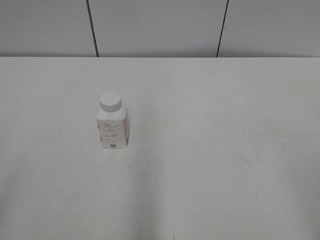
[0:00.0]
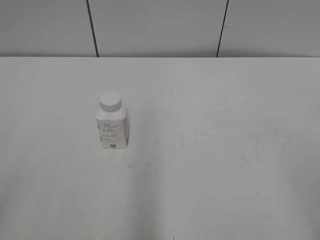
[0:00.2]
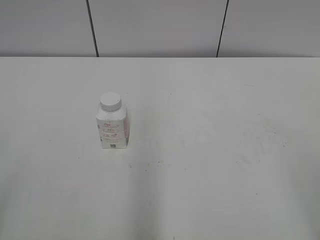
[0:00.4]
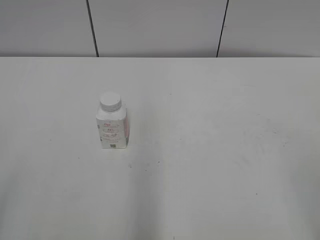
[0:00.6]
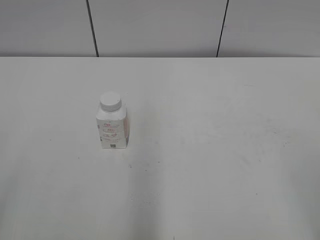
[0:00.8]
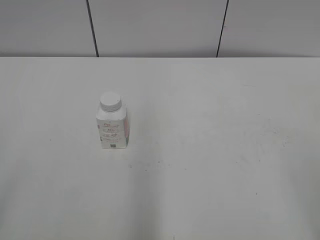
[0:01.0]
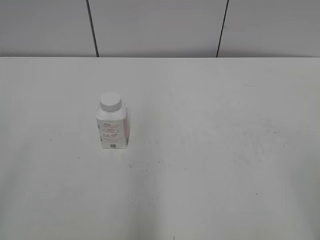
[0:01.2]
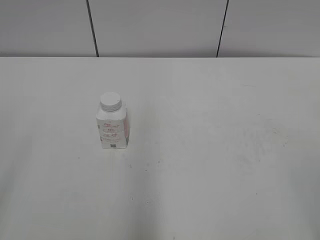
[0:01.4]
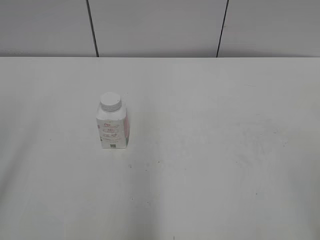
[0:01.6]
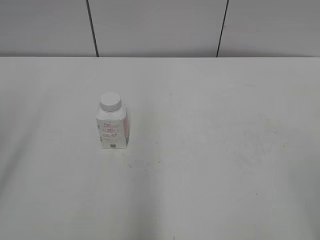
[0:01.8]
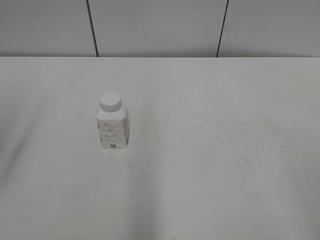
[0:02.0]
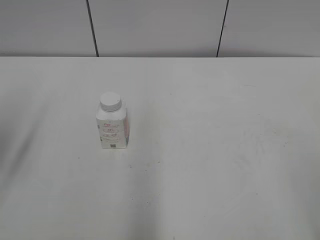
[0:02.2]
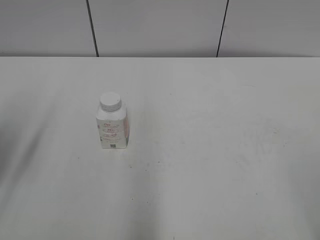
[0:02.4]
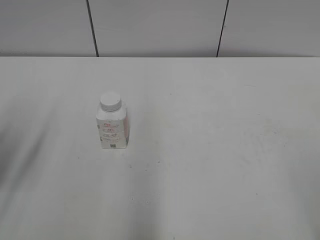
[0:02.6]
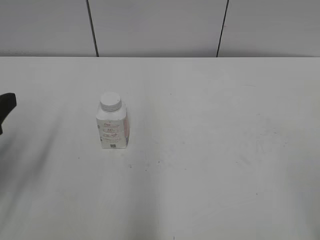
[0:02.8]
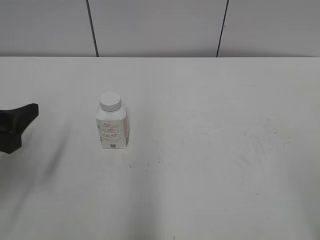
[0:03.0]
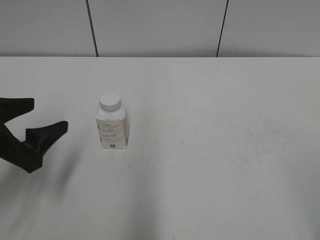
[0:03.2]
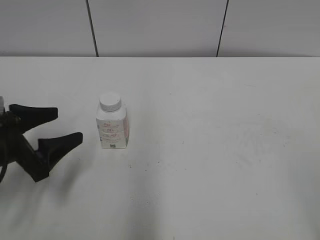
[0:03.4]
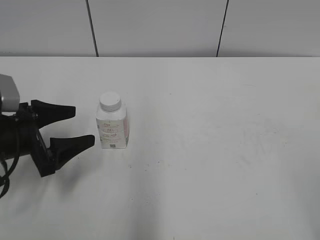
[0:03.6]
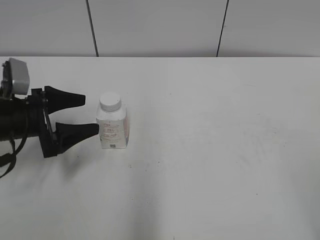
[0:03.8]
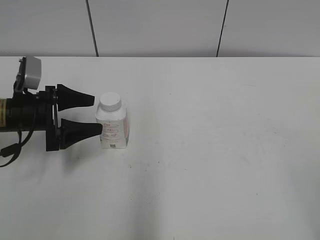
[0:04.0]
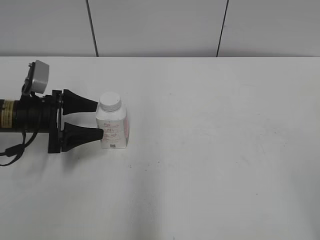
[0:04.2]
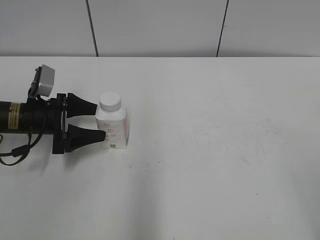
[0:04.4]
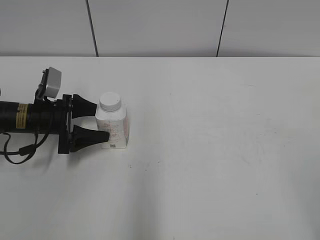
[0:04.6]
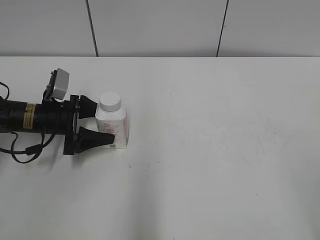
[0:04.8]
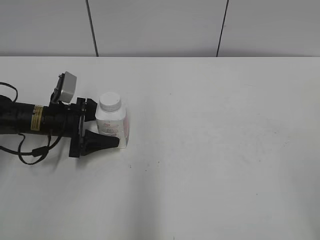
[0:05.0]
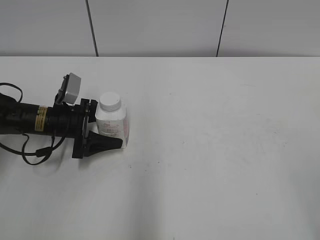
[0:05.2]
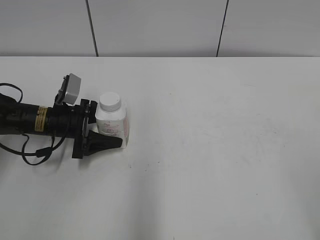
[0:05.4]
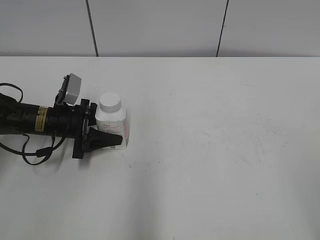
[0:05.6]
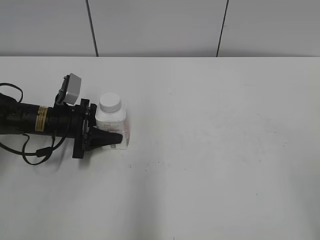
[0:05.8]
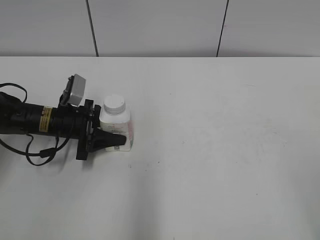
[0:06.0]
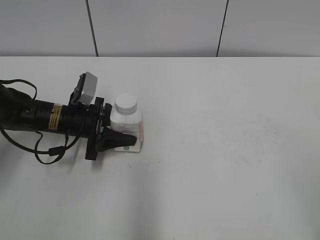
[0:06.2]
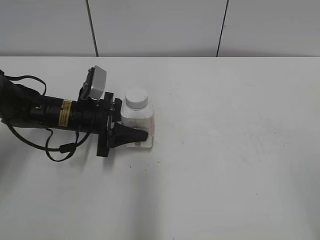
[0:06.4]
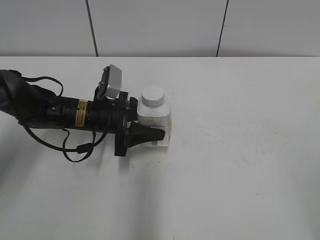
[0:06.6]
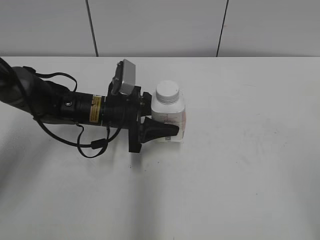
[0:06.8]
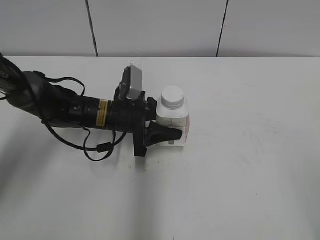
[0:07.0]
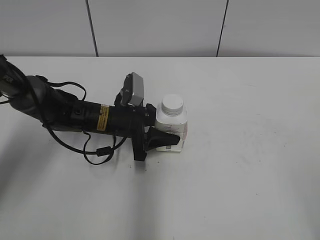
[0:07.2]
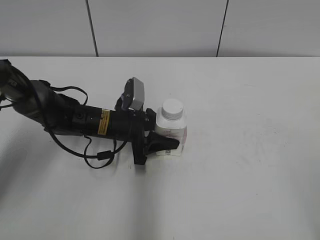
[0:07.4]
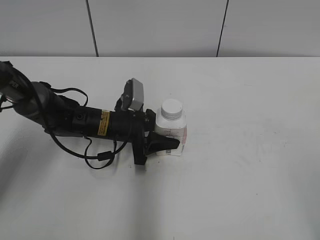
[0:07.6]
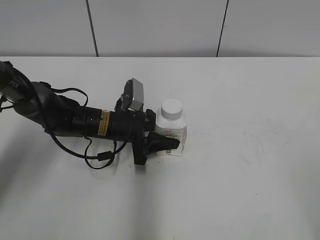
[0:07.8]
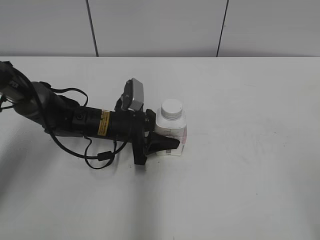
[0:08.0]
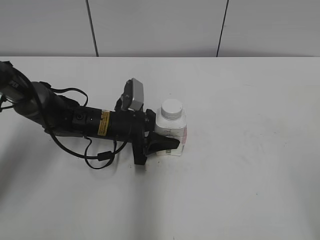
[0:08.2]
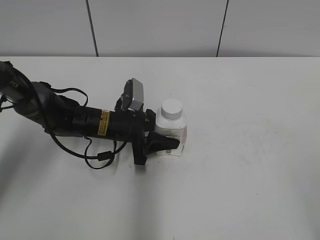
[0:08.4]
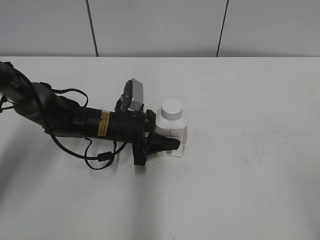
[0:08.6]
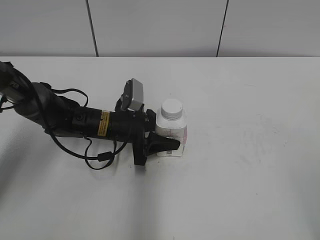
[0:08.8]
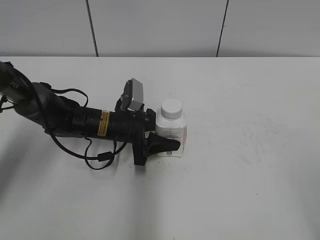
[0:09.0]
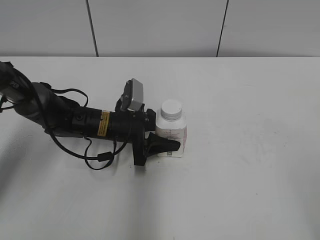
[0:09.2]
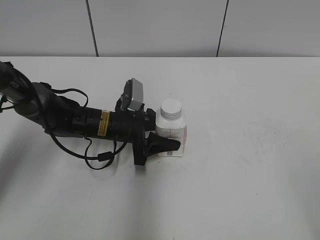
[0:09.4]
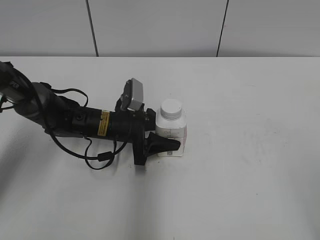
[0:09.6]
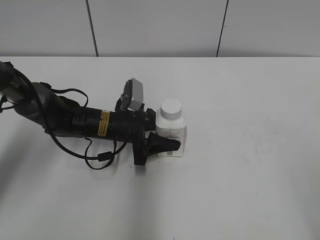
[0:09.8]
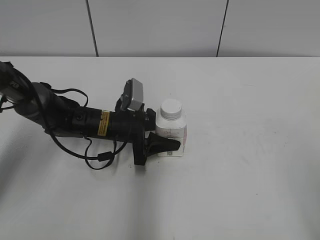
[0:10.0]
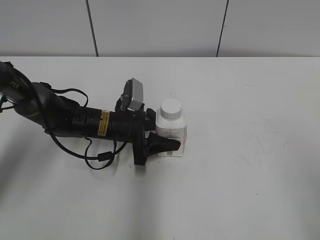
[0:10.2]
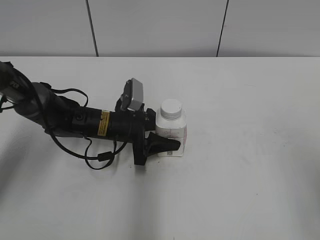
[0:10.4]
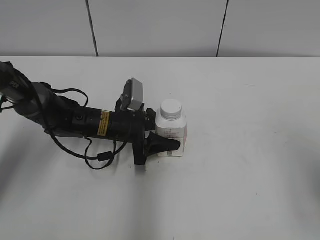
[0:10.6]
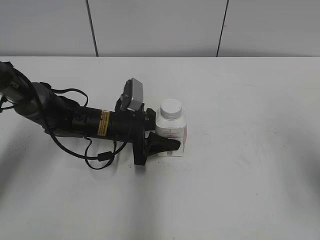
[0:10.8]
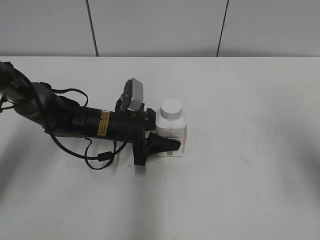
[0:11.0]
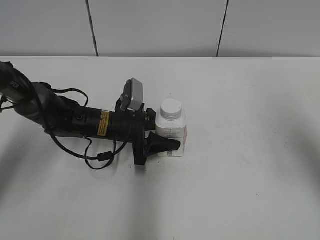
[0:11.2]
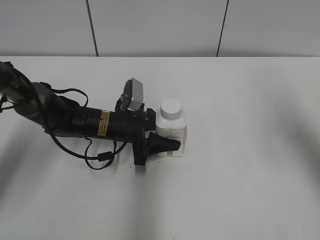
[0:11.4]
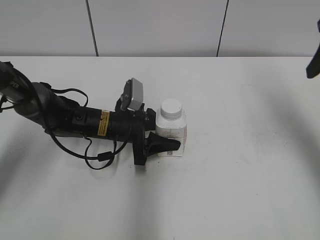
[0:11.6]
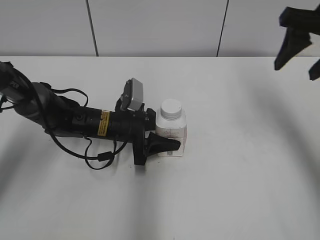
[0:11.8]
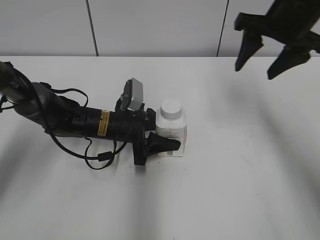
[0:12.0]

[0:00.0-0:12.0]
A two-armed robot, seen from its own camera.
Step, 0:00.0 to 0:05.8: Grasp the bottle and move it to the center of the table with the left gripper.
Step, 0:06.0 to 0:07.8: Lift the bottle and move it to the center of the table with the left gripper.
0:01.6 to 0:03.0: The left gripper goes approximately 20 cm downward and forward.
0:03.0 to 0:04.4: The left gripper travels forward and downward by some 20 cm.
0:04.4 to 0:06.0: The left gripper changes place by approximately 5 cm, and closes.
0:06.0 to 0:07.6: The left gripper shifts some 10 cm to the right.
0:07.6 to 0:09.0: The two grippers keep their place.
0:10.4 to 0:12.0: The right gripper is displaced forward by some 30 cm.

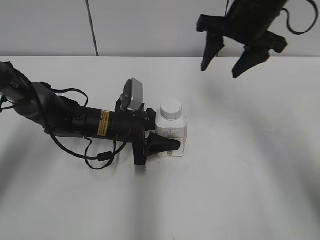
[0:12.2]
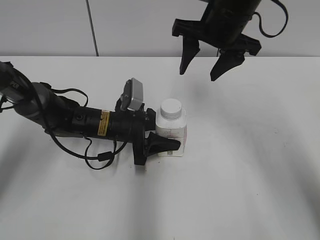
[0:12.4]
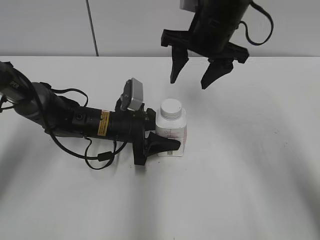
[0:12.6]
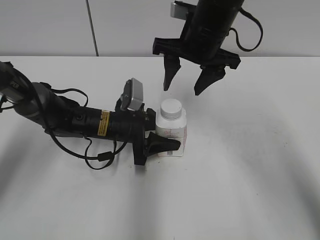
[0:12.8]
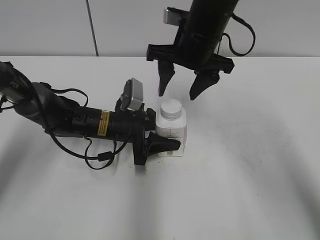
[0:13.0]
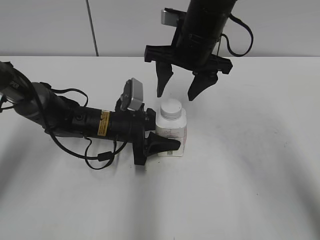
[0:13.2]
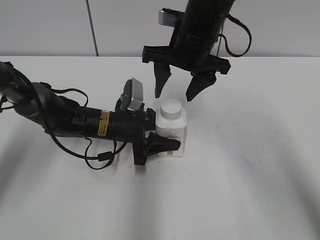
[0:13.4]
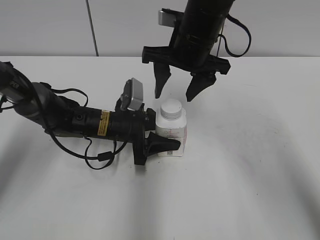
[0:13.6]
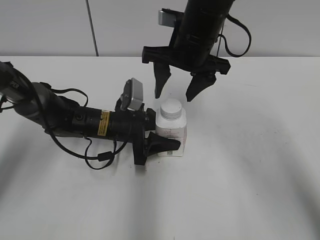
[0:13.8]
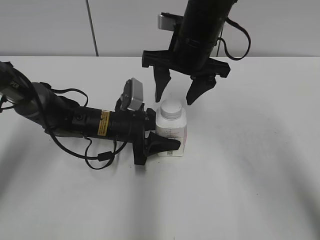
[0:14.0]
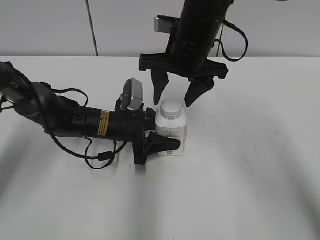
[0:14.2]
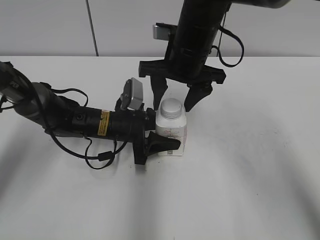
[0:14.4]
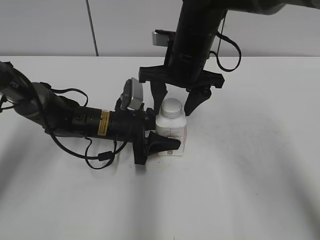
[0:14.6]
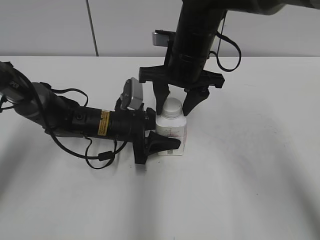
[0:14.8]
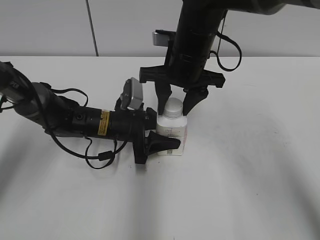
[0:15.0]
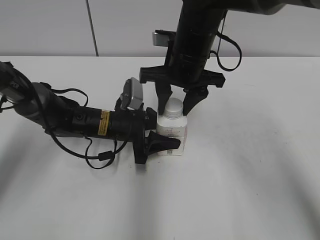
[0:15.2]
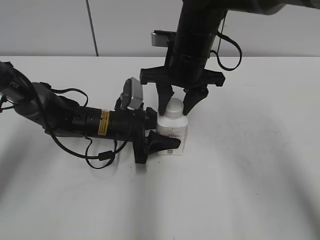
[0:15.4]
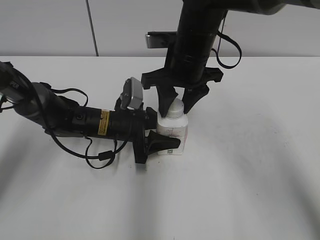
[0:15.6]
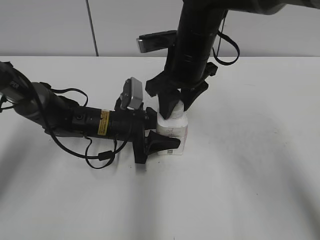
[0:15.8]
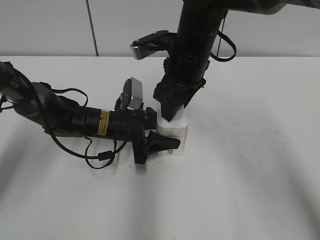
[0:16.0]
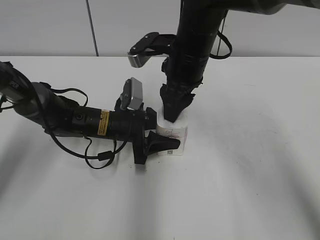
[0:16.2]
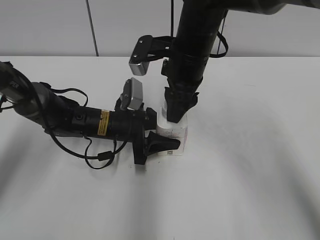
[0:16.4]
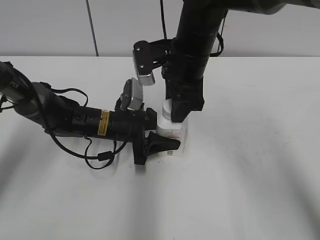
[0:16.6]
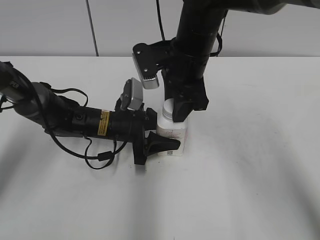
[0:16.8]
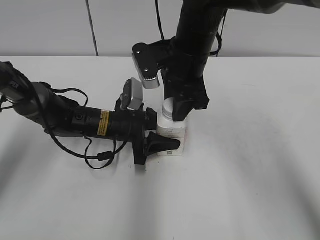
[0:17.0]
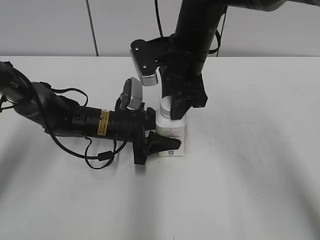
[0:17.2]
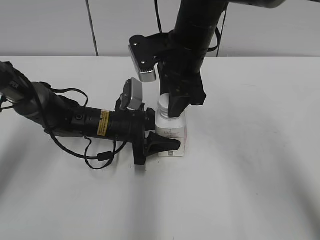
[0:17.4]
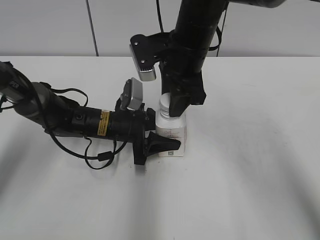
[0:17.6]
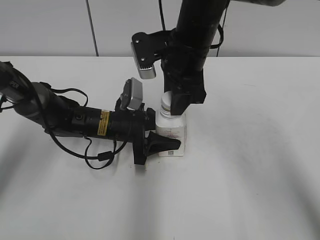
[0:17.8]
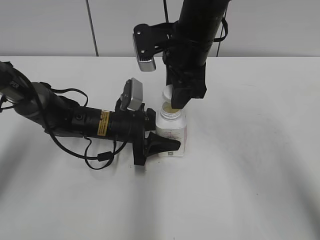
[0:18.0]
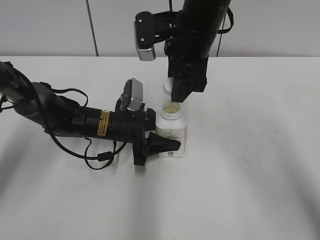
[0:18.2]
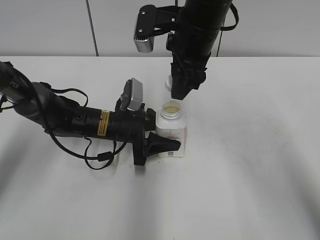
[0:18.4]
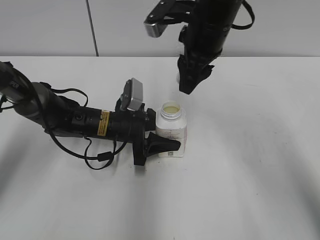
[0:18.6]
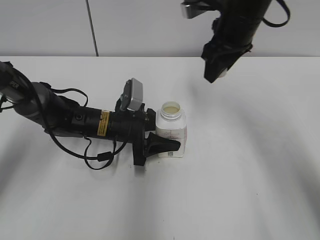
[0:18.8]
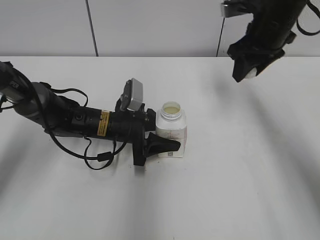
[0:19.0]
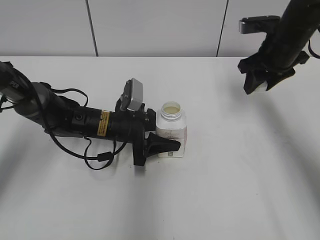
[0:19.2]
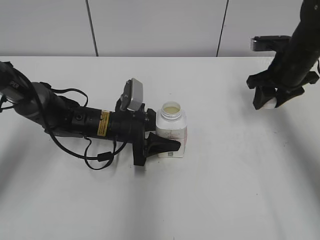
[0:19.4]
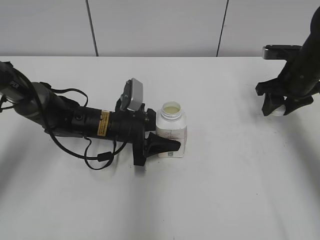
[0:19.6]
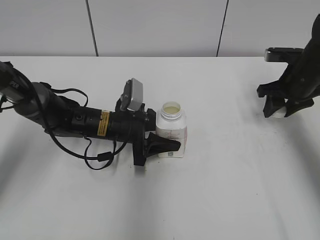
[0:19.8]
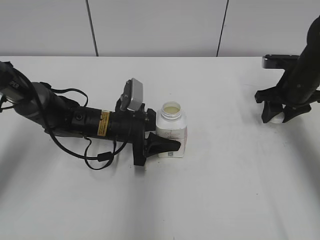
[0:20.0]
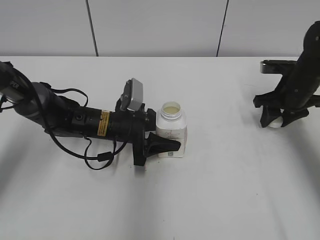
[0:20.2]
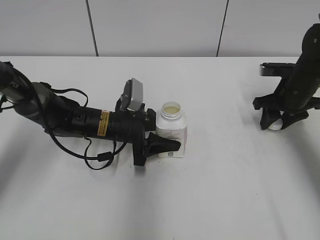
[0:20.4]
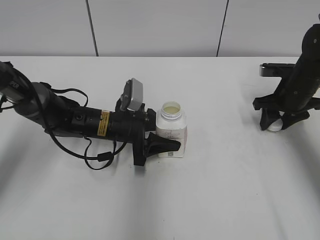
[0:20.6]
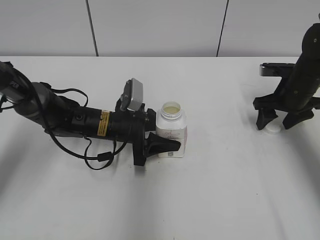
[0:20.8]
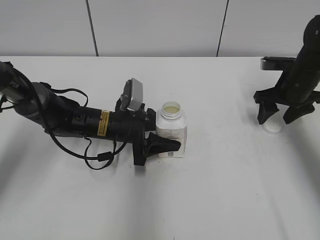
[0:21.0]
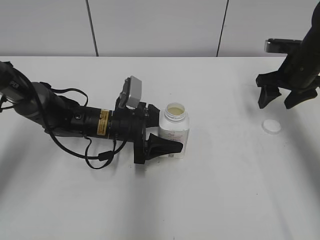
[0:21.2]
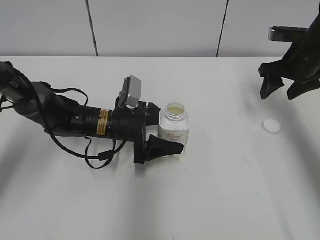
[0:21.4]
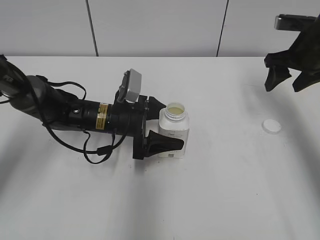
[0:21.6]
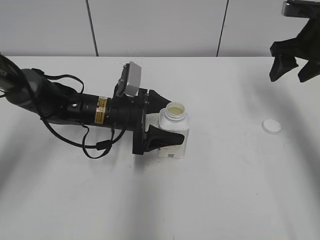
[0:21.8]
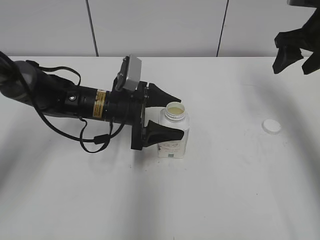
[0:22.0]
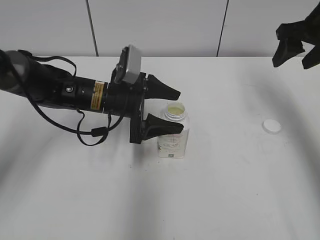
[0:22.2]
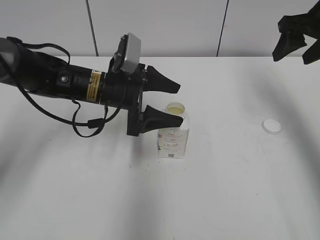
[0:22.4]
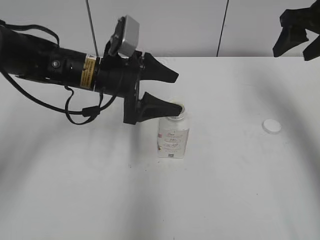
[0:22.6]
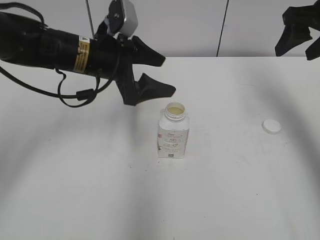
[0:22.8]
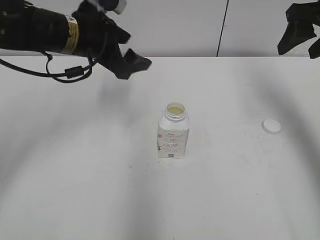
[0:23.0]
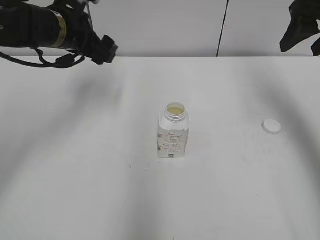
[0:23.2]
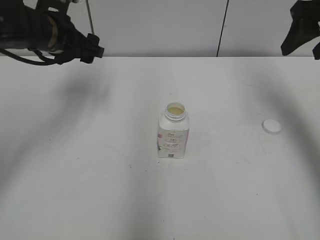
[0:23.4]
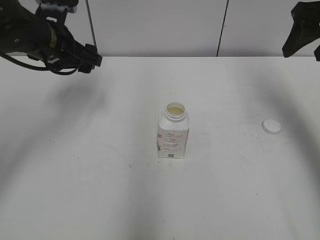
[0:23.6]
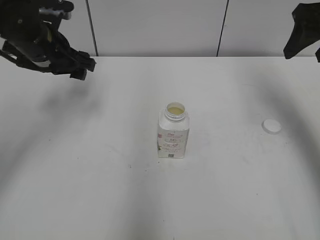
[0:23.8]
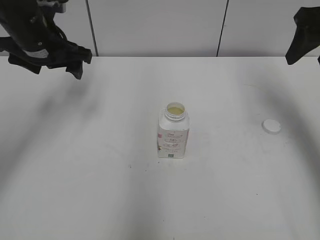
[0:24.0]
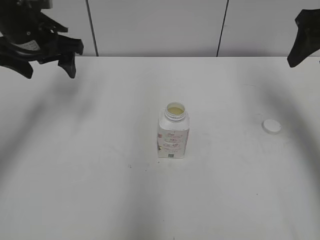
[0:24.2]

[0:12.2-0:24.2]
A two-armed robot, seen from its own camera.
Step, 0:12.2 to 0:18.0: Unscrew the bottle cap with the right gripper while holding the bottle with the left gripper.
Step, 0:18.2 to 0:20.6: Place the bottle cap on the table with the right gripper.
Step, 0:20.8 to 0:21.8: Place the bottle on the table with the left gripper.
0:12.2 to 0:13.8: The right gripper is displaced to the left by roughly 10 cm.
0:13.8 to 0:15.2: The right gripper closes up.
0:16.6 to 0:18.2: The grippers move only a little.
0:18.2 to 0:19.8: The right gripper goes about 25 cm to the right and downward.
0:19.8 to 0:21.2: The right gripper opens.
0:21.2 to 0:22.6: The grippers both shift upward by about 10 cm. The left gripper opens up.
0:22.6 to 0:24.2: The left gripper is displaced to the left and upward by approximately 15 cm.
